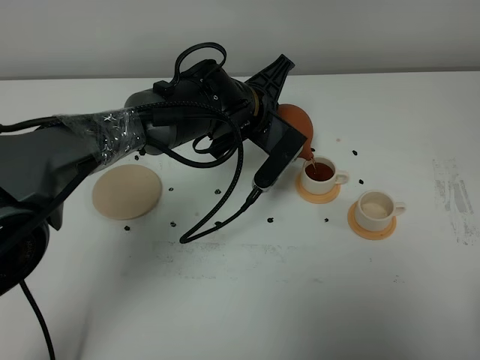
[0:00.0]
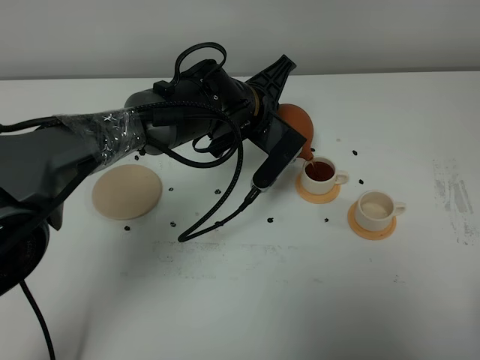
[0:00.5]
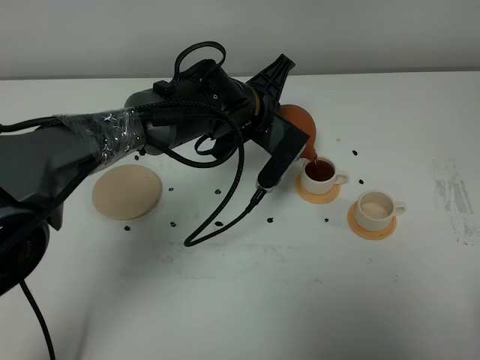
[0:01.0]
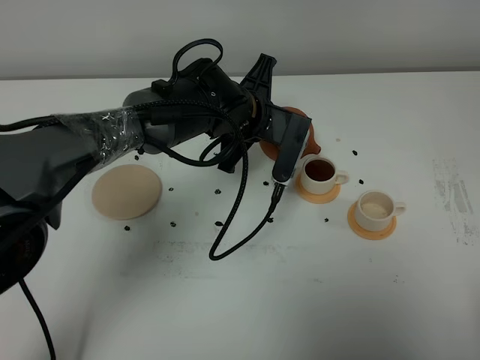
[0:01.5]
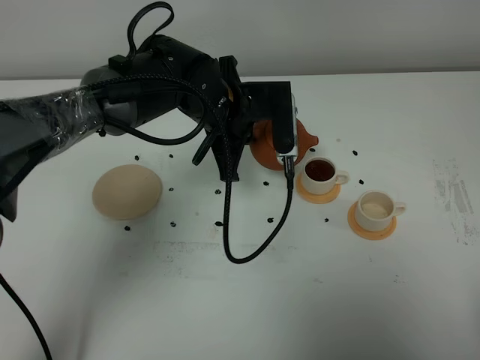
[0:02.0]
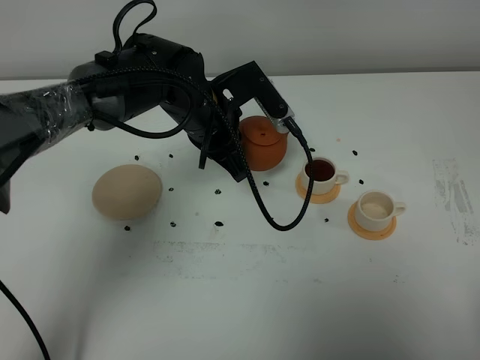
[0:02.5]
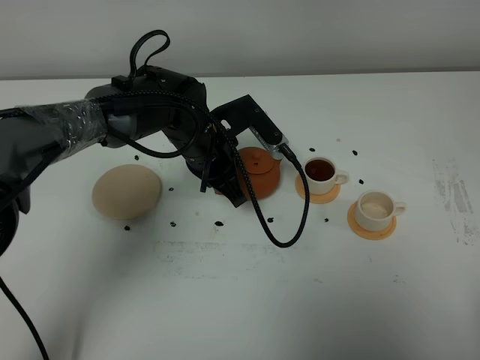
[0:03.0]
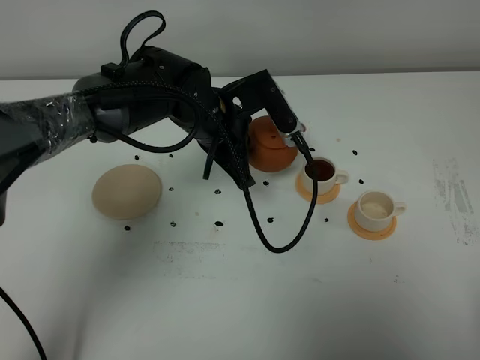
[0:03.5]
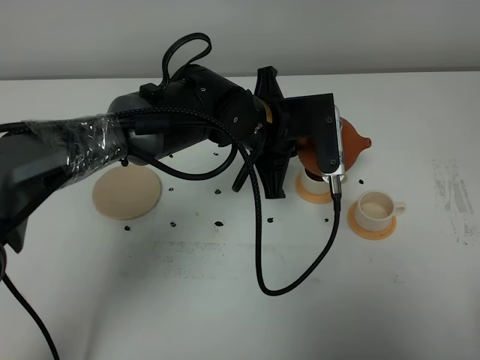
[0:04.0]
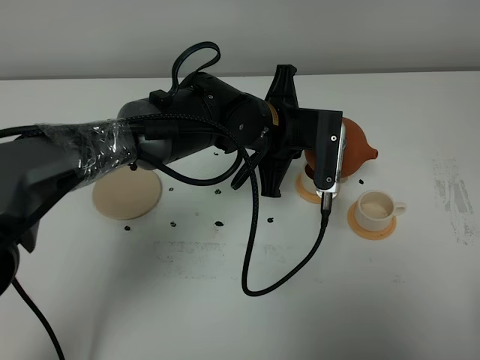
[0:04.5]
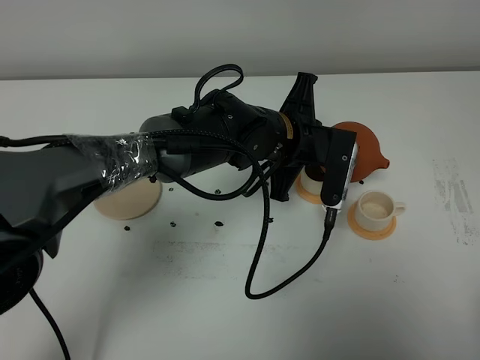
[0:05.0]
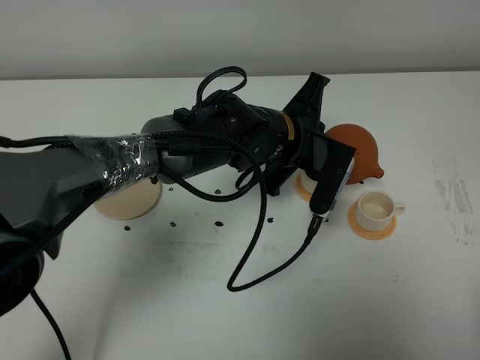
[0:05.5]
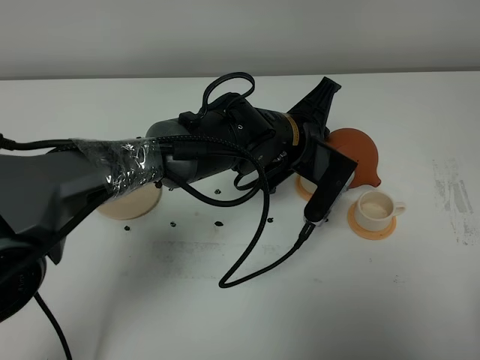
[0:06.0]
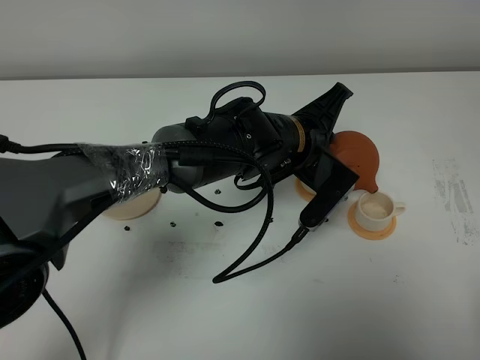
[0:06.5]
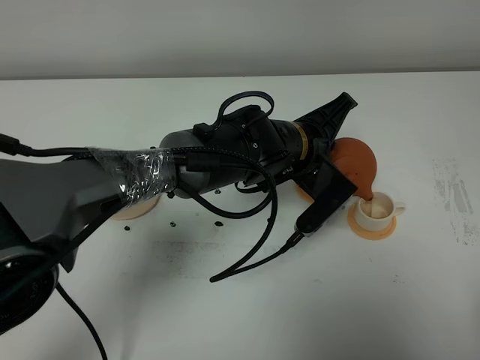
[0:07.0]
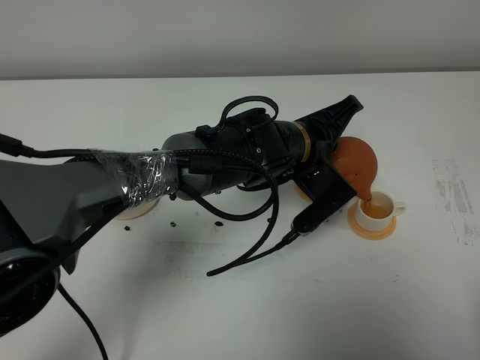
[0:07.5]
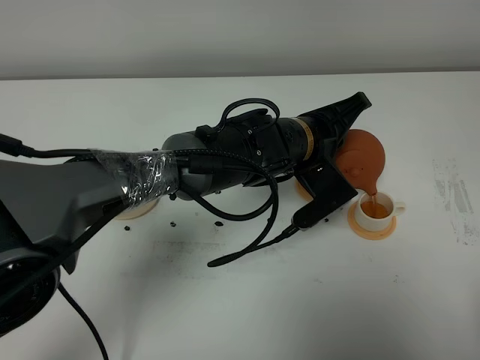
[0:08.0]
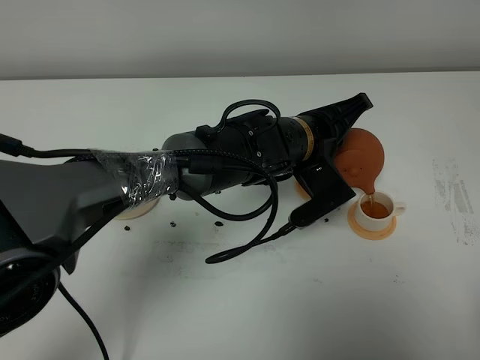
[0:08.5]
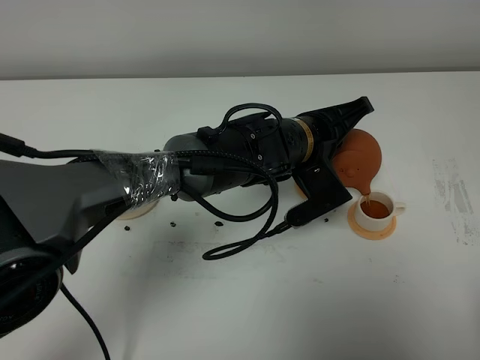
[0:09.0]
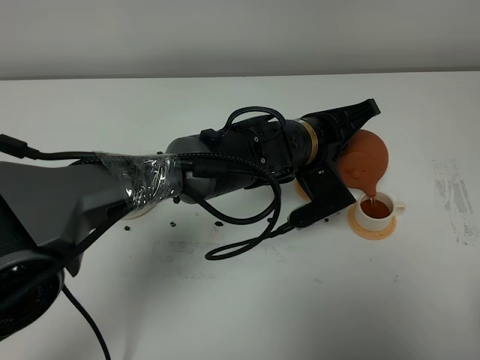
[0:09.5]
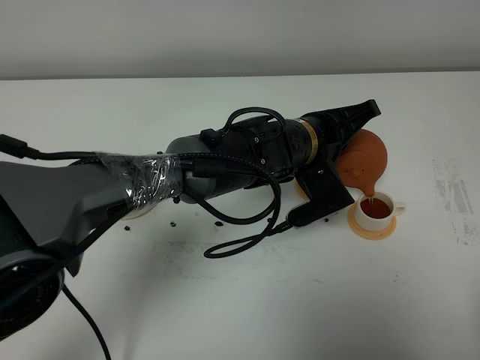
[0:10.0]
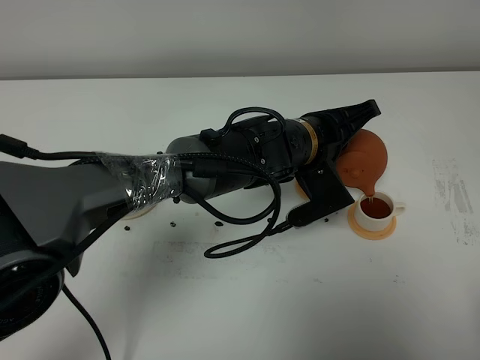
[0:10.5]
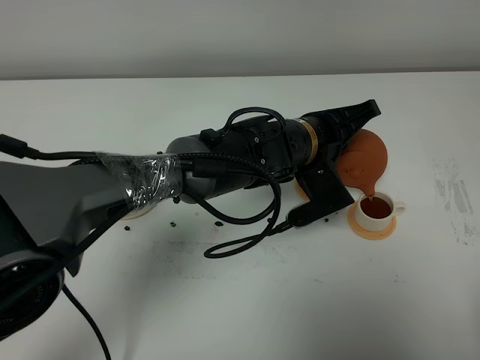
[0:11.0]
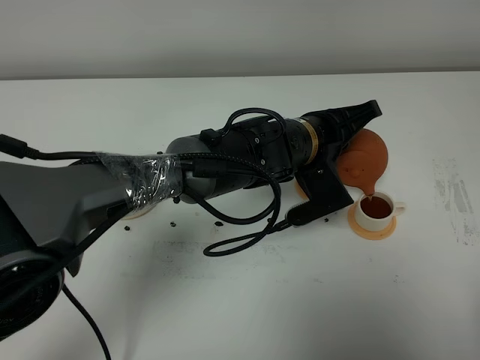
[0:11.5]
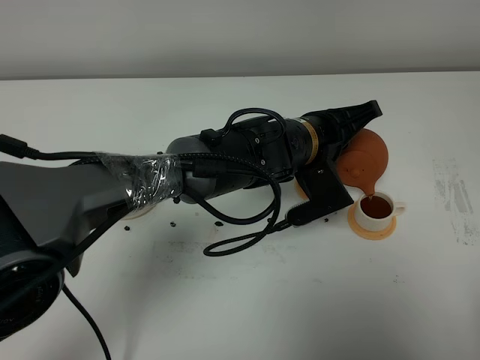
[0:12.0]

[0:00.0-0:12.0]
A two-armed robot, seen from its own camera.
Task of the whole recording: grasp the brown teapot and pour the tea into the two white teacups one by one, put the brown teapot back in its original place.
0:02.0 to 0:04.0: The left gripper ends up approximately 5 cm from where it was.
0:08.0 to 0:10.0: There are only small adjustments of the grippers.
0:10.0 to 0:12.0: Both grippers stay put.

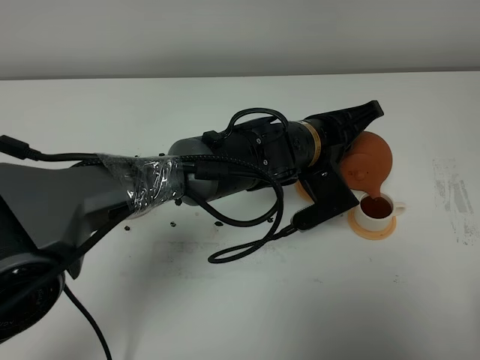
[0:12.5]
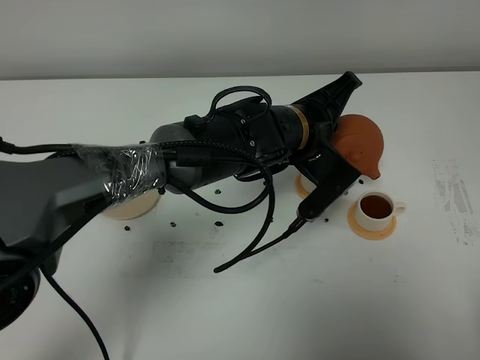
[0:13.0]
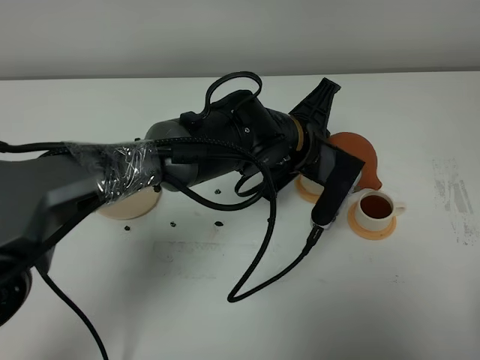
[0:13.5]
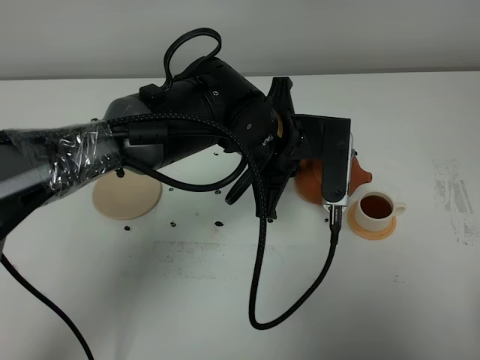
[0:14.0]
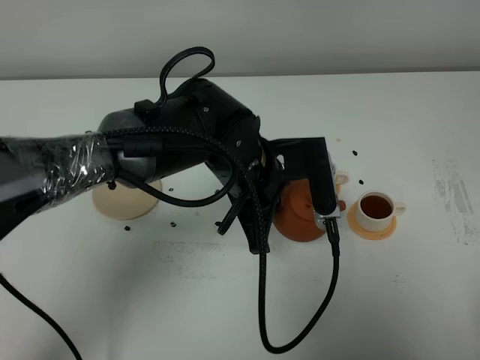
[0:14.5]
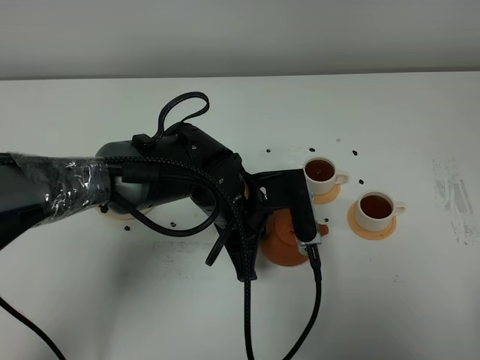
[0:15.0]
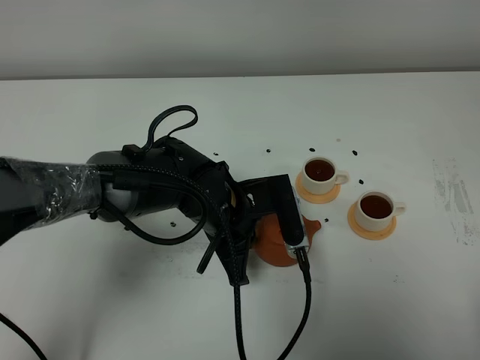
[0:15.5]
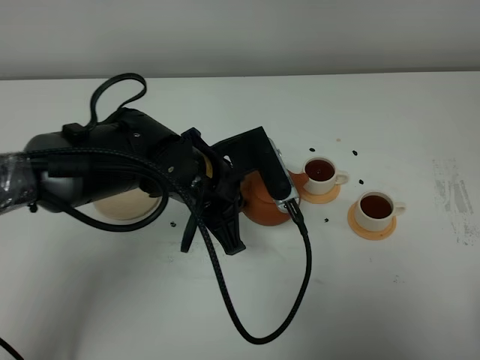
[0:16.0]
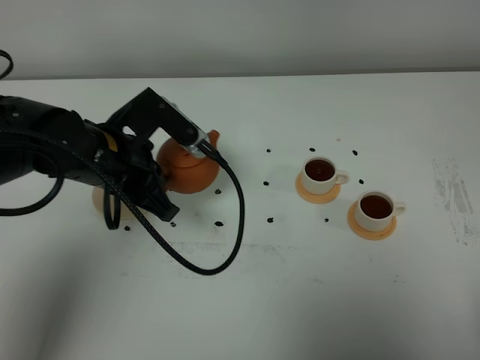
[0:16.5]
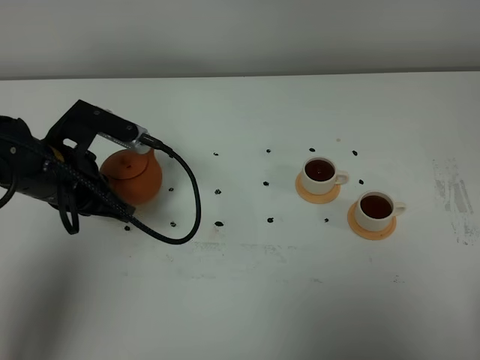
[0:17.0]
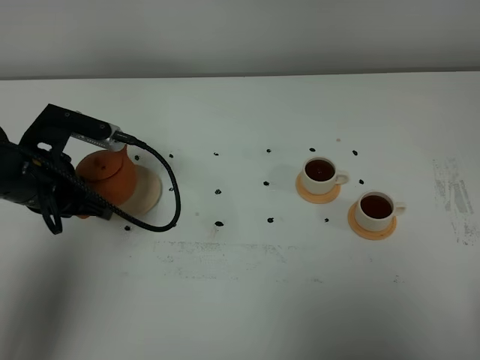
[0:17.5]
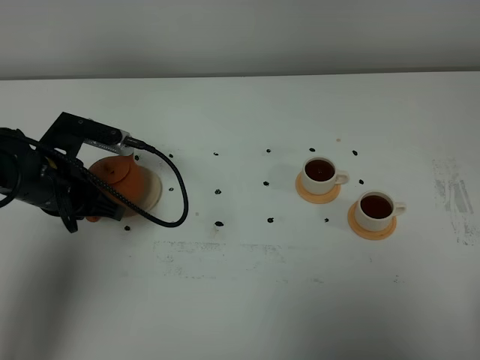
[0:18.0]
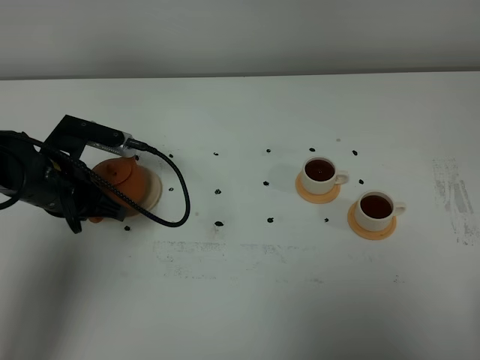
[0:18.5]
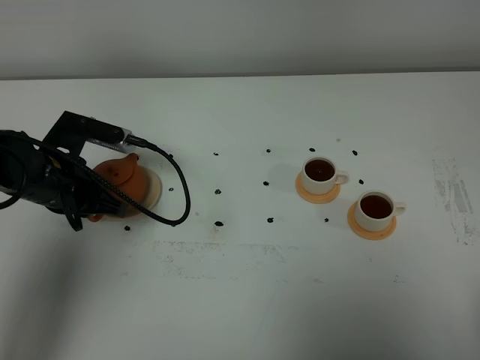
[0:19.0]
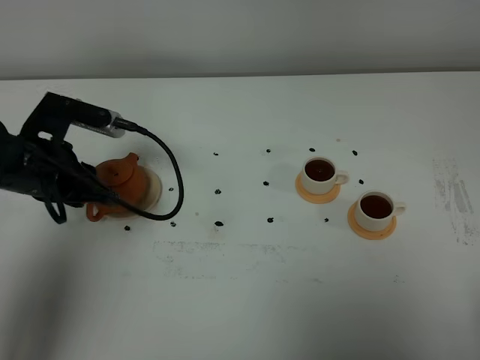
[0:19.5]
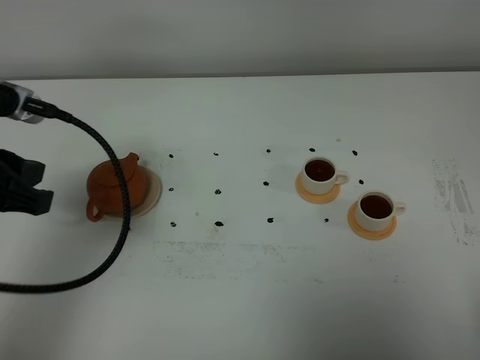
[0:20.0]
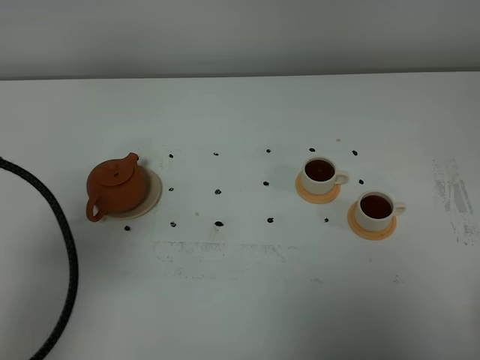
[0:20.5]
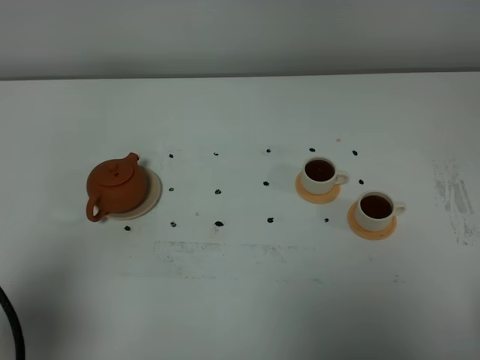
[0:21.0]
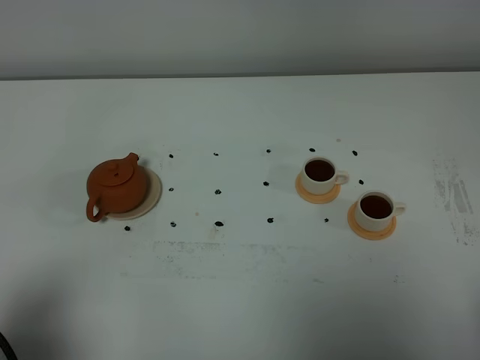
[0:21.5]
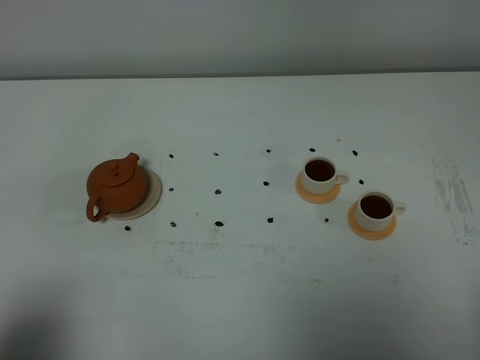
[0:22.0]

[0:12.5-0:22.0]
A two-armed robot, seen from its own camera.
Task of the whole recording: grasp the brown teapot and pour the tea into the two white teacups one by one, put the brown teapot back in its original place.
0:12.5 to 0:14.5: The left gripper travels to the left by roughly 5 cm.
0:14.5 to 0:16.5: The left gripper shifts roughly 15 cm to the left.
0:16.5 to 0:18.0: The left gripper travels to the left and downward by about 10 cm.
0:18.0 to 0:20.0: The left gripper is displaced upward and backward by roughly 20 cm, and opens up.
0:20.0 to 0:22.0: The left gripper is displaced backward by some 20 cm.

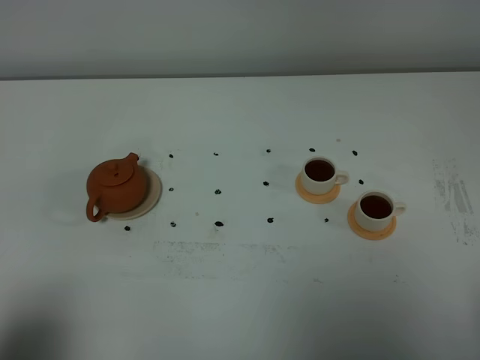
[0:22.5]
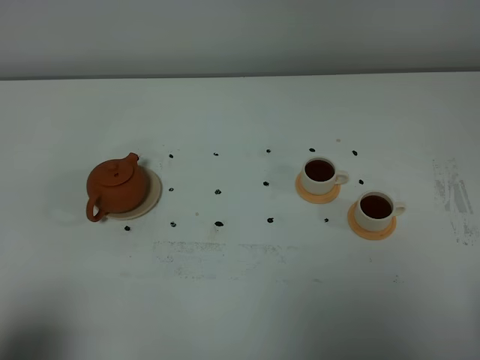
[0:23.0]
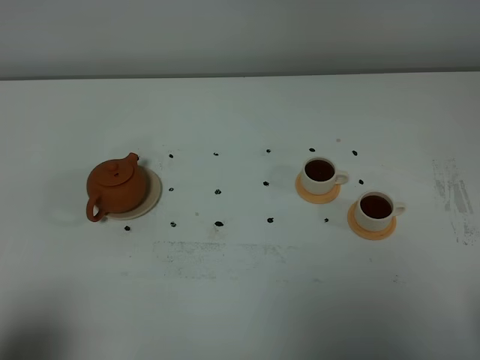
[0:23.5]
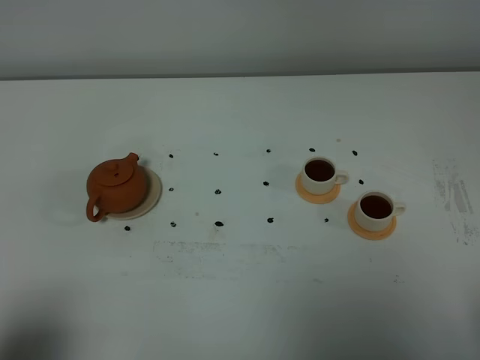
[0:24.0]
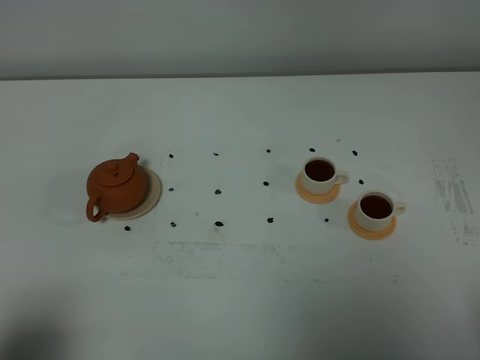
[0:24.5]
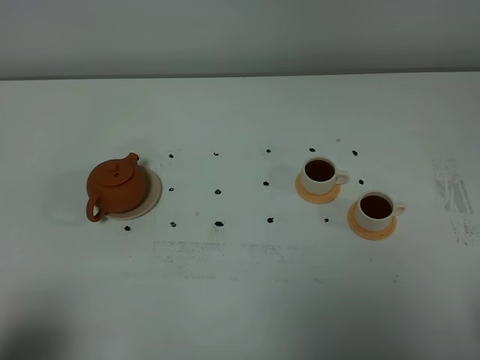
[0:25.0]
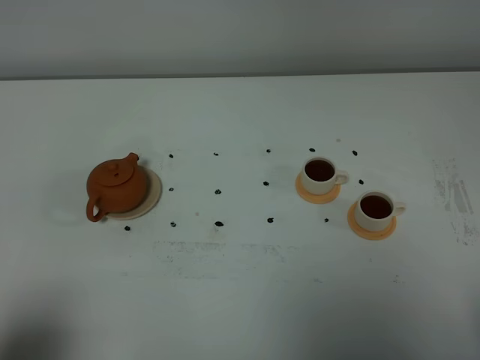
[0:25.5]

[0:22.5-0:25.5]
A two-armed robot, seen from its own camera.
Task of the whole recording: grasp the brown teapot and pour the tea into the two white teacups one by one, put the brown teapot back in its original place.
0:22.5 to 0:25.5: Both grippers stay about where they are.

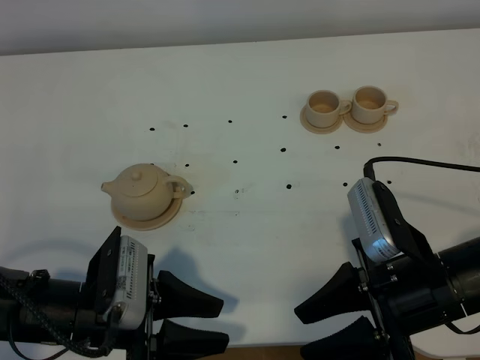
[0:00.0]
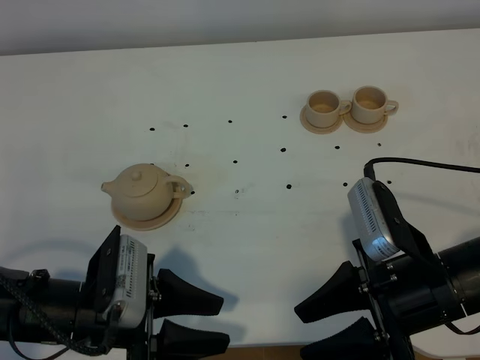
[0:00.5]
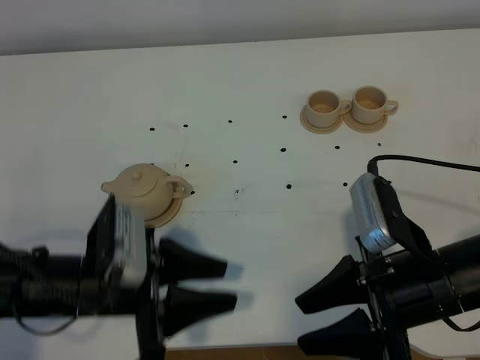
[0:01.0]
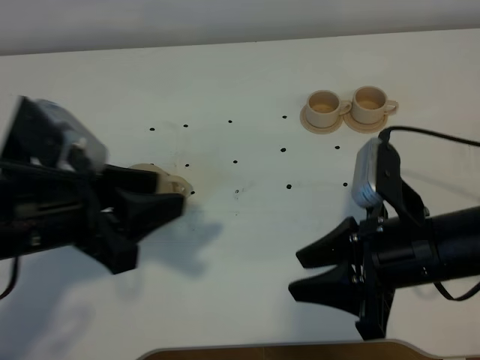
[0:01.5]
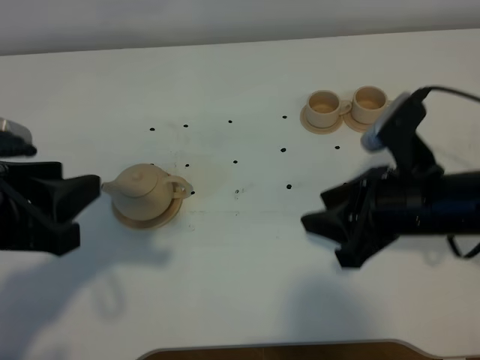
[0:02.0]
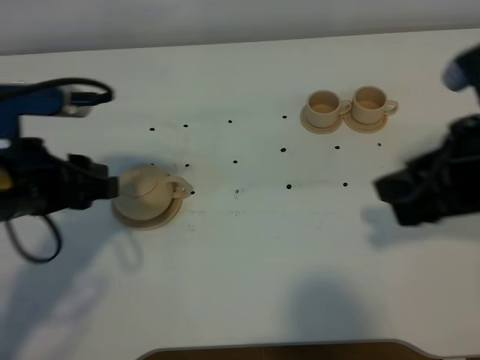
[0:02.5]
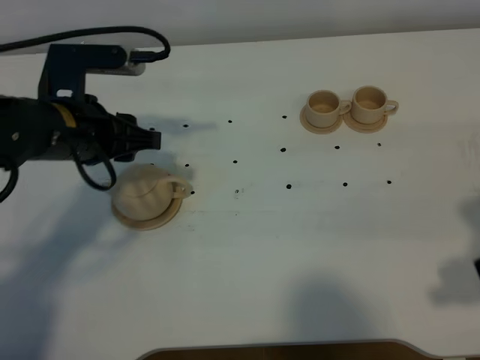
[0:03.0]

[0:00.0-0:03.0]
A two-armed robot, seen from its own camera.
Task of the whole recording: grasp the brown teapot and pour the tea into the two brown teacups one by one, put the brown teapot back in its original place.
0:00.0 to 0:01.5: The left gripper travels upward by some 15 cm.
0:01.5 to 0:03.0: The left gripper goes roughly 15 cm forward; the right gripper goes some 15 cm upward, to the right and backward.
